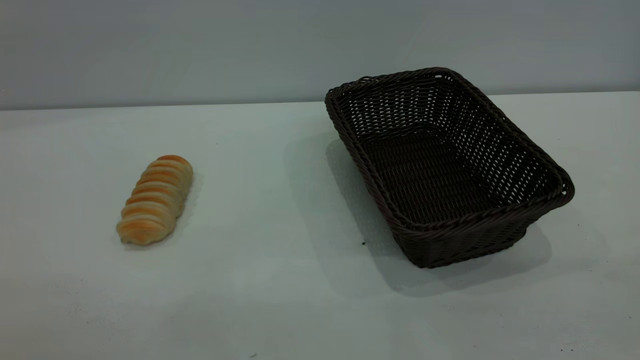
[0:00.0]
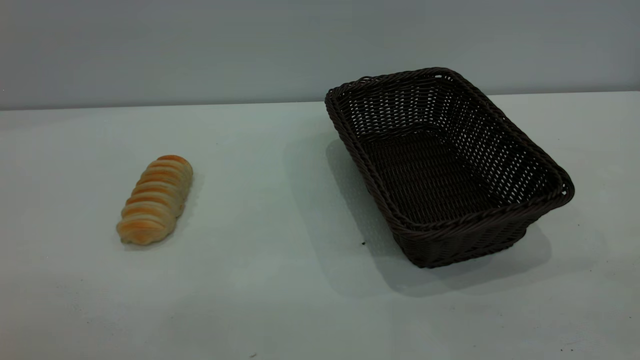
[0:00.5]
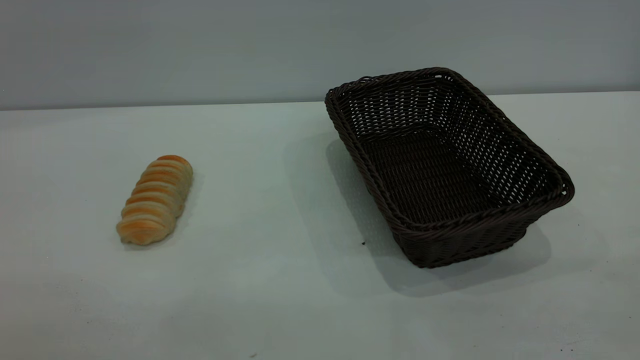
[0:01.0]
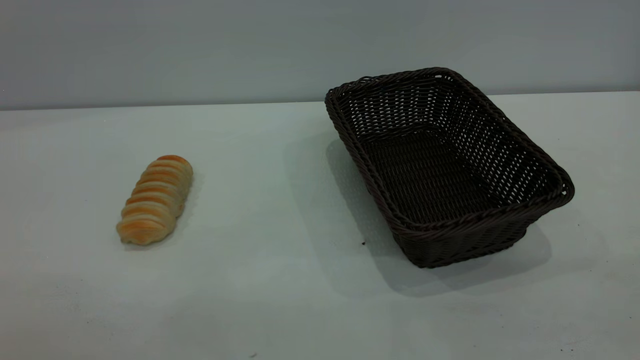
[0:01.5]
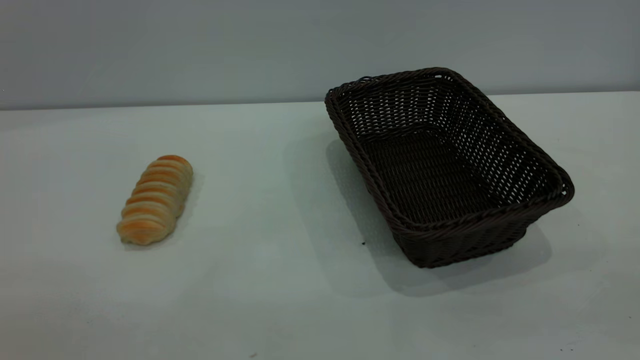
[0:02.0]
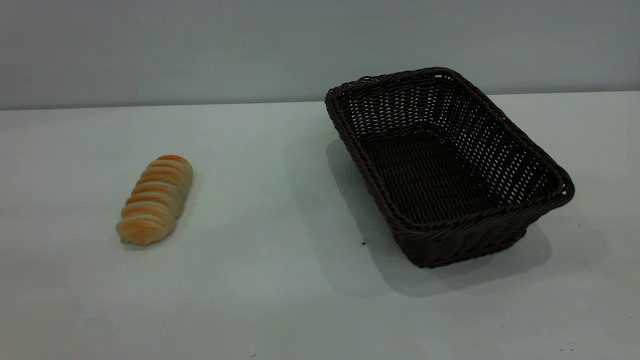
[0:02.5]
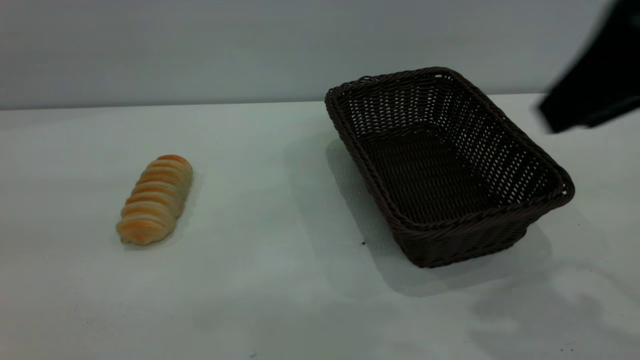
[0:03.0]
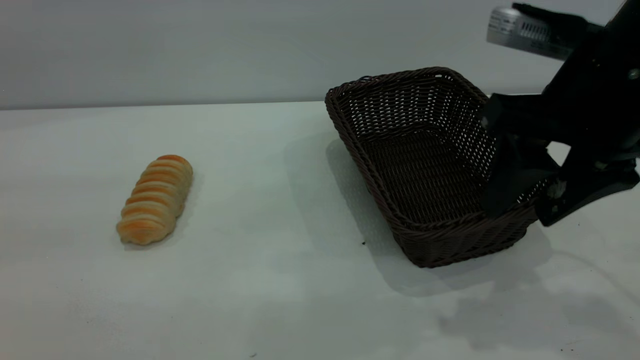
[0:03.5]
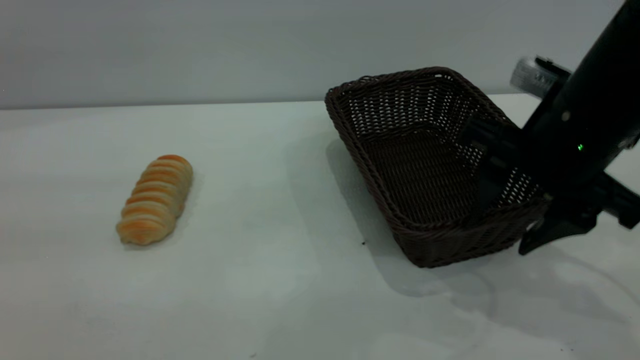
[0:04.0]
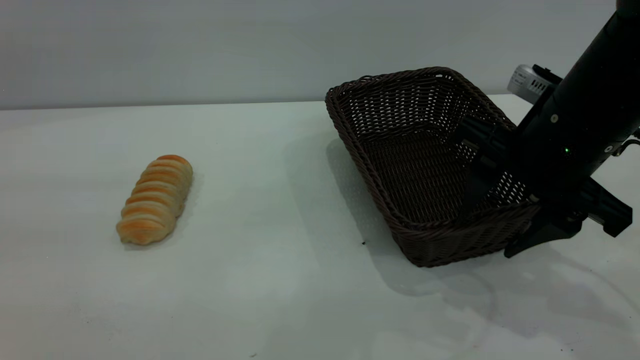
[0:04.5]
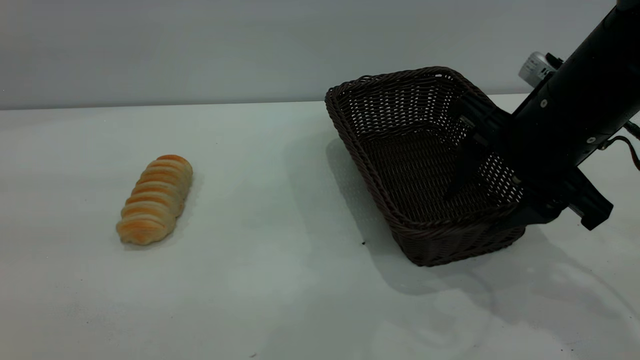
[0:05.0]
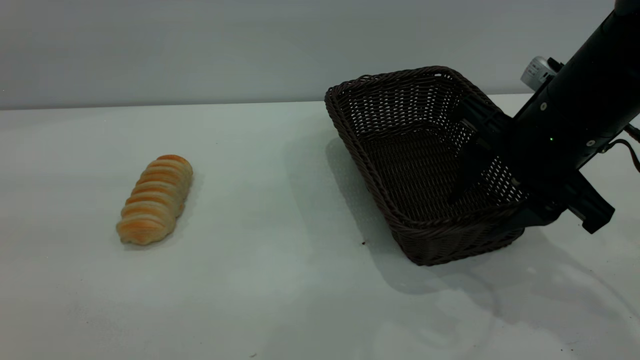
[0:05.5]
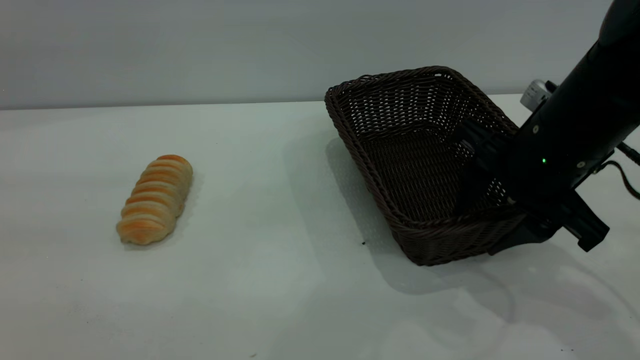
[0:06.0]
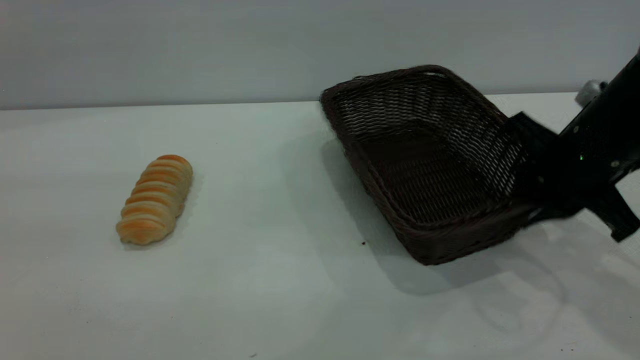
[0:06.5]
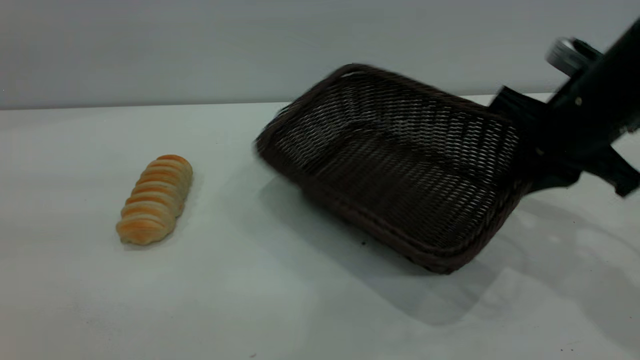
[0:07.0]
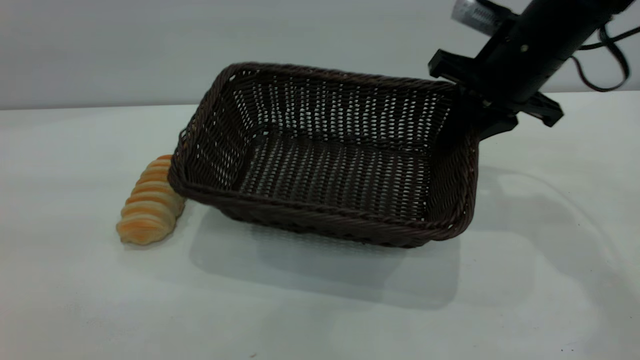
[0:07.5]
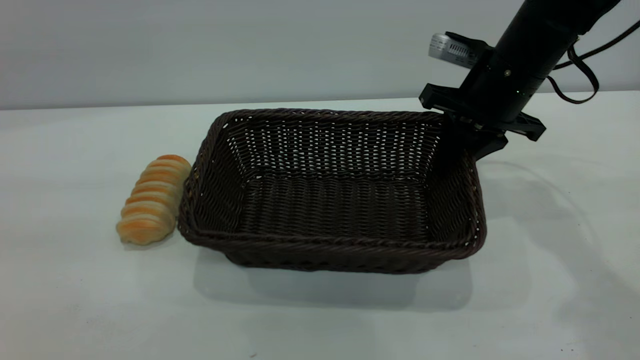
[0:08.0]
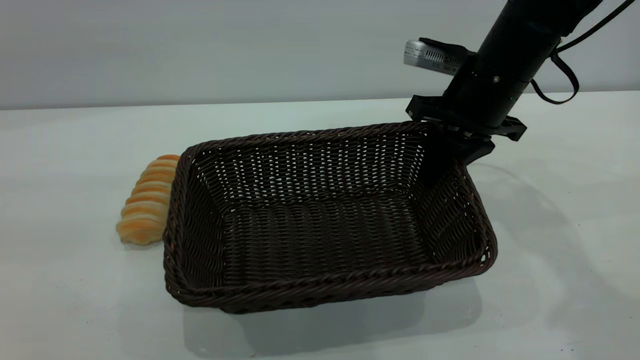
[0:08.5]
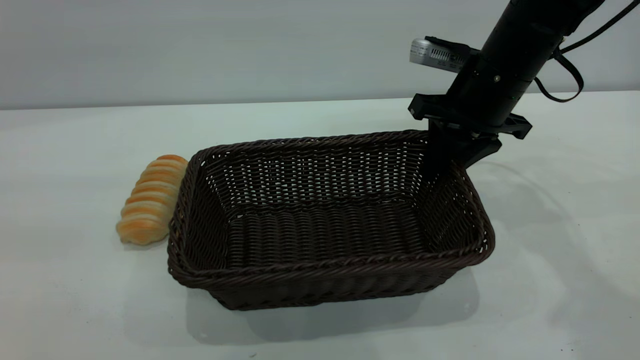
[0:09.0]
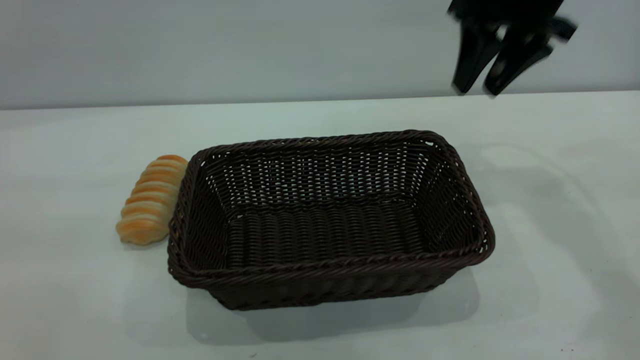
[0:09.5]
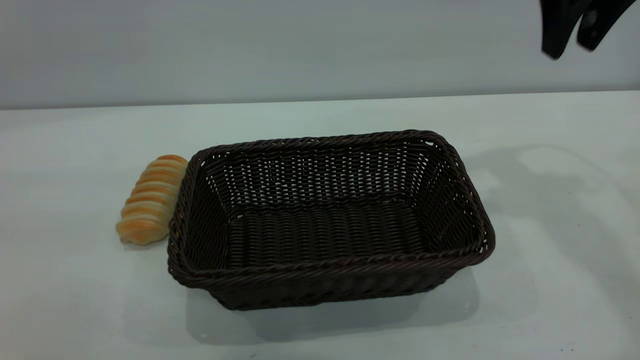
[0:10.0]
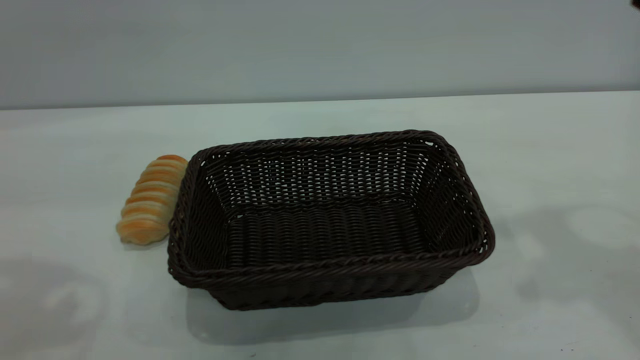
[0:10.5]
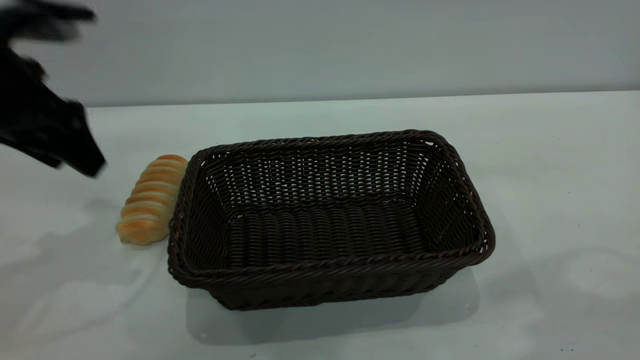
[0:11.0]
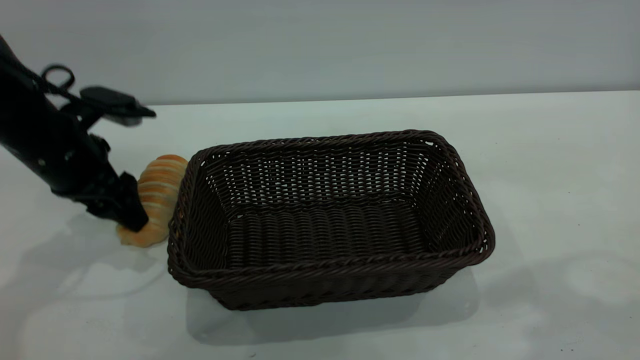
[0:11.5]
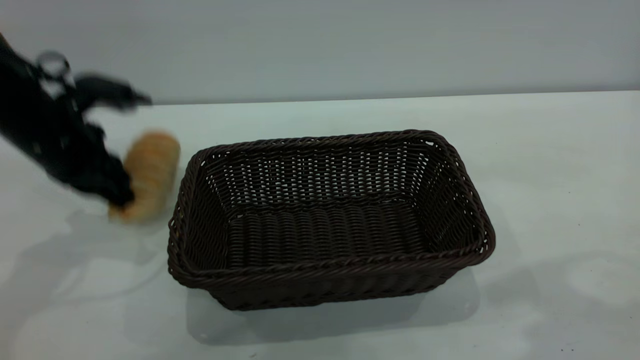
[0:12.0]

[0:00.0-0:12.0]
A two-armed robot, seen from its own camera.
Task of the whole recording: One hand grasps the black basket and places it in the middle of the table, while the other hand picks up the long bread and puts it into the black basket.
Step, 0:00.0 to 0:09.0: Move the basket to the center of view.
0:02.0 to 0:04.0: The right gripper heads forward and downward, covering approximately 35 cm.
0:04.0 to 0:06.0: The grippers make only small movements.
0:06.0 to 0:08.0: The right gripper moves forward, some 15 cm, and closes up.
0:08.0 to 0:10.0: The right gripper goes approximately 15 cm upward, and opens up.
0:10.0 to 0:12.0: The right gripper is displaced backward and upward by some 20 cm, while the left gripper is displaced forward and downward by approximately 30 cm, and closes.

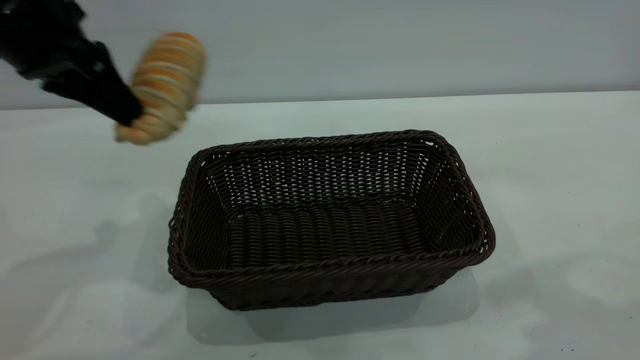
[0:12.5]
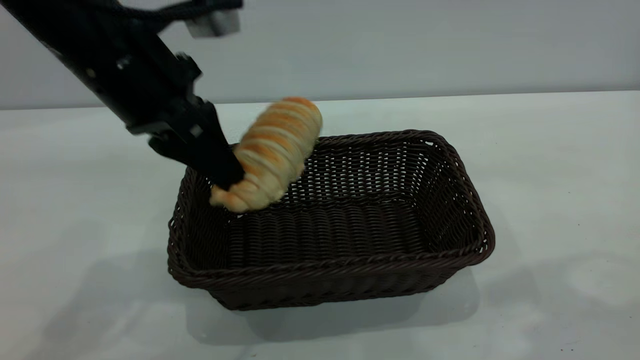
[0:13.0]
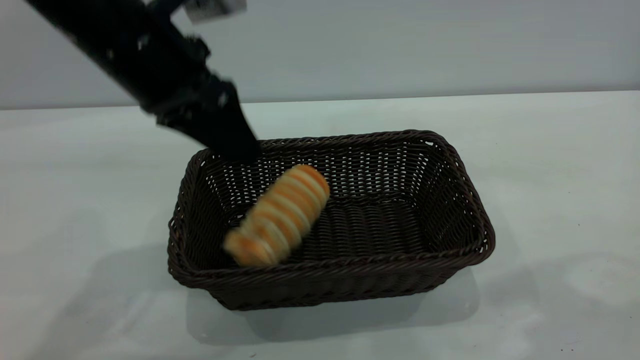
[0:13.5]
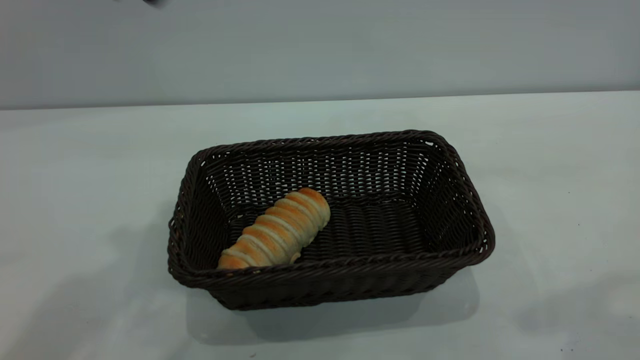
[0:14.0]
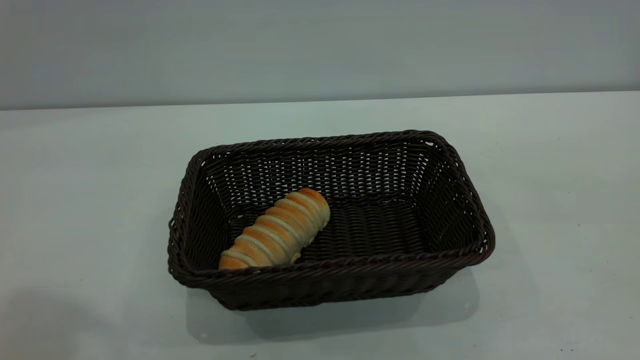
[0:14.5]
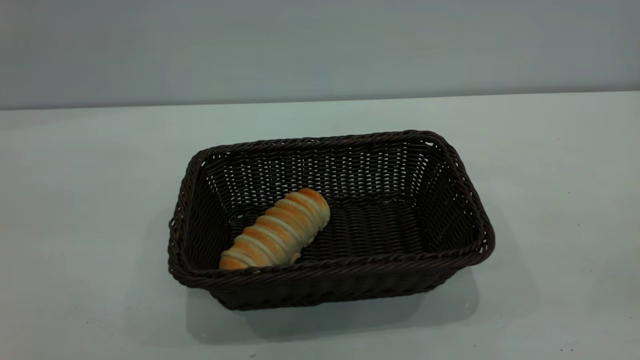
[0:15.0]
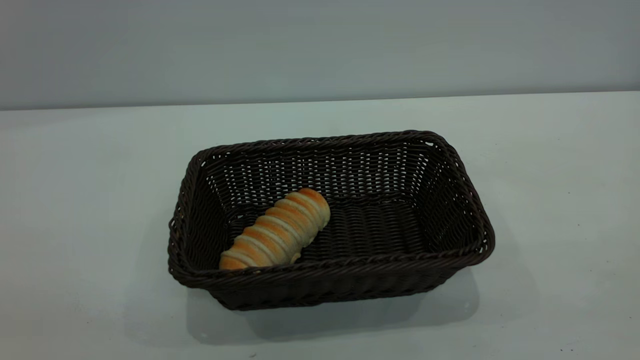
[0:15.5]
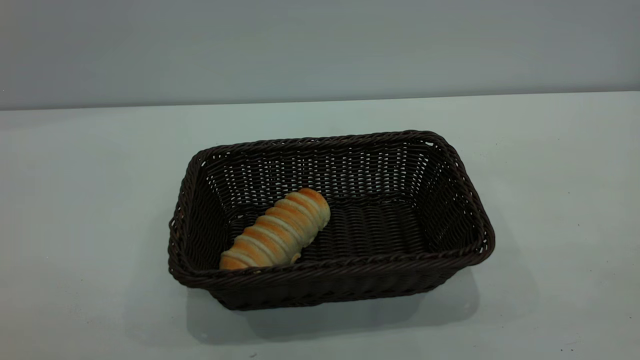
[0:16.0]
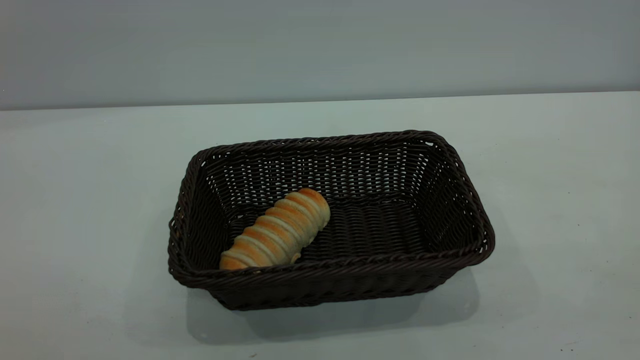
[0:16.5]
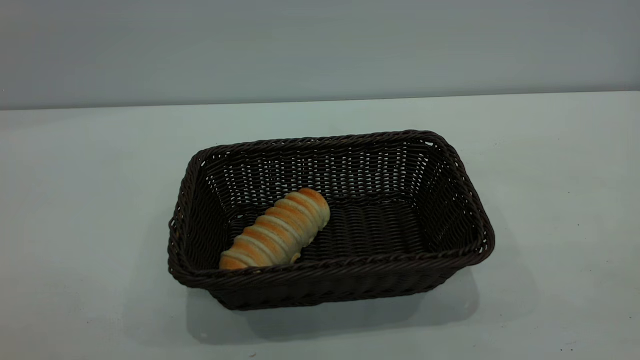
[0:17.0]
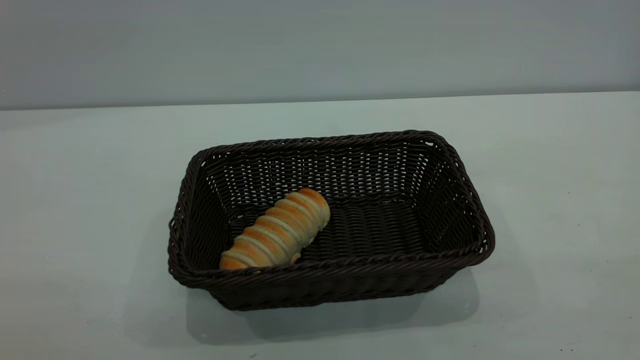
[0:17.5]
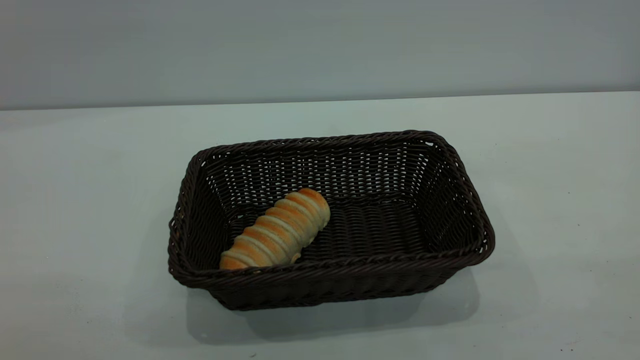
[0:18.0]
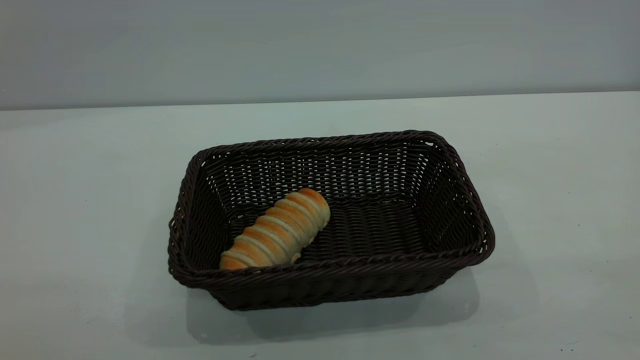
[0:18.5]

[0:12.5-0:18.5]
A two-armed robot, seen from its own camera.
Task of the whole recording: One hand grasps the black basket and places it in the middle of the table, while the other hand picks up the long bread and puts it into the black basket.
Step, 0:12.5 to 0:13.5: place the bread into the basket.
0:12.5 to 0:14.5: The right gripper is displaced backward by roughly 15 cm. Meanwhile the left gripper shifts about 25 cm upward and backward, and opens up.
